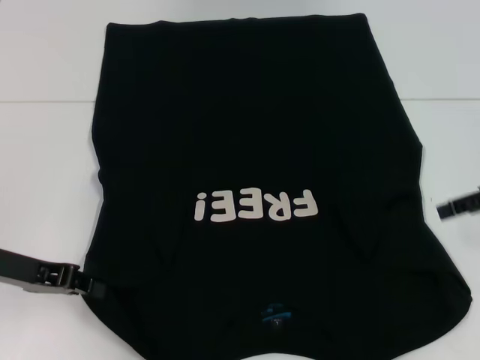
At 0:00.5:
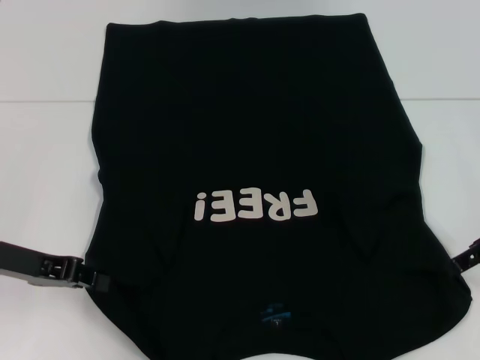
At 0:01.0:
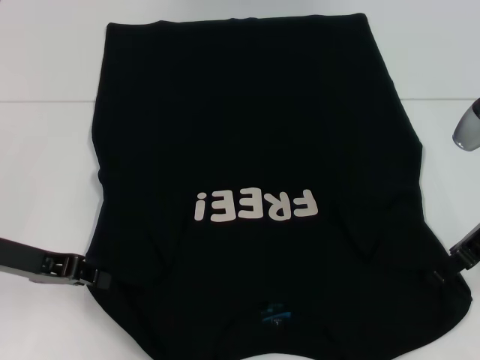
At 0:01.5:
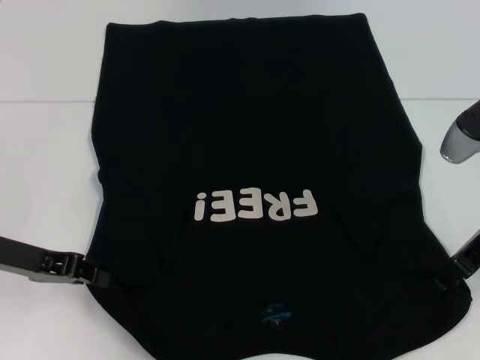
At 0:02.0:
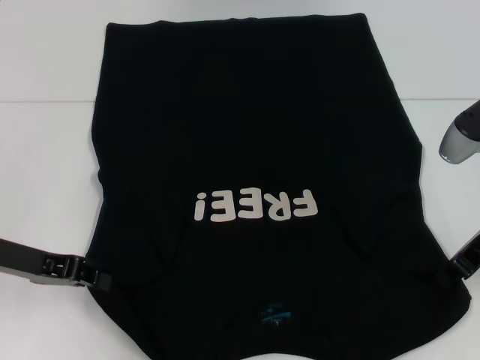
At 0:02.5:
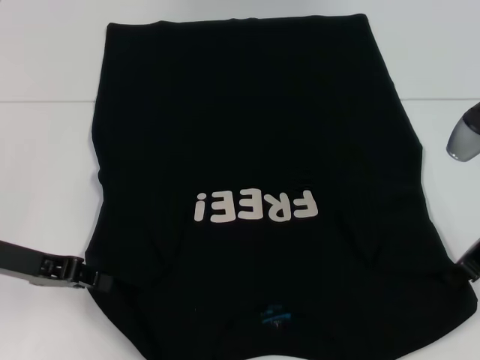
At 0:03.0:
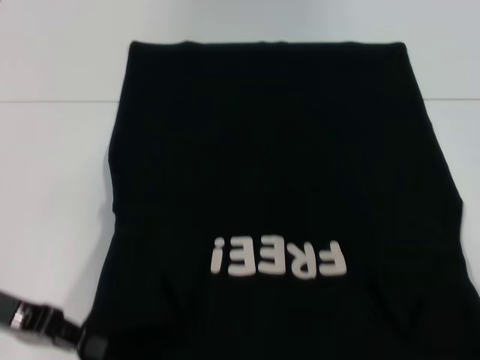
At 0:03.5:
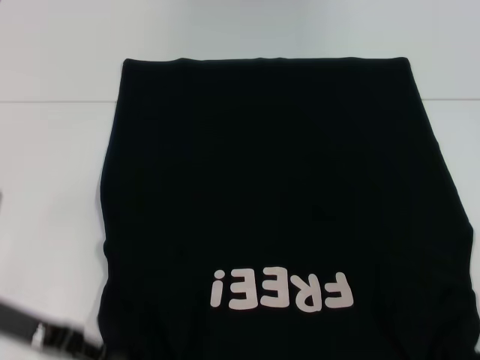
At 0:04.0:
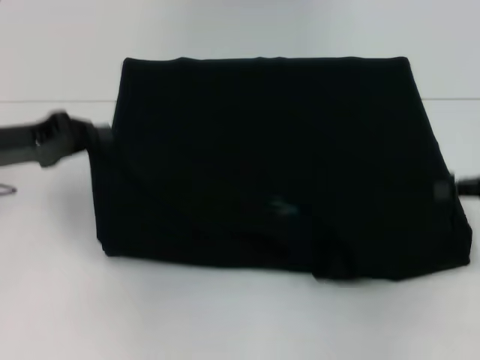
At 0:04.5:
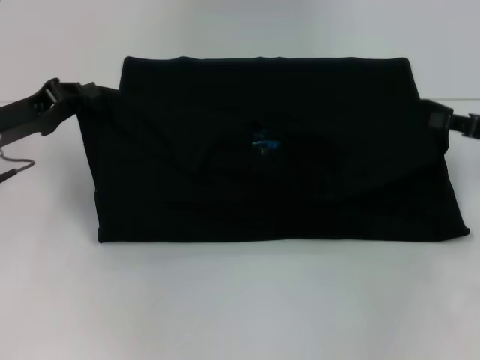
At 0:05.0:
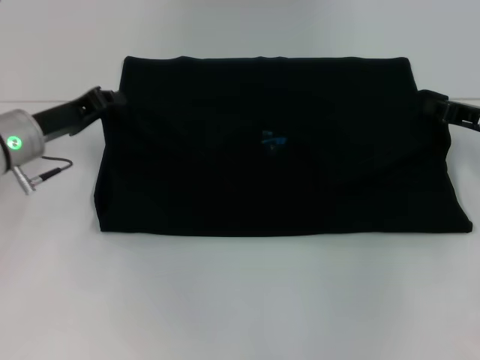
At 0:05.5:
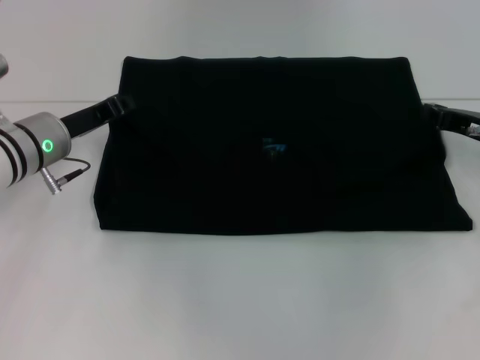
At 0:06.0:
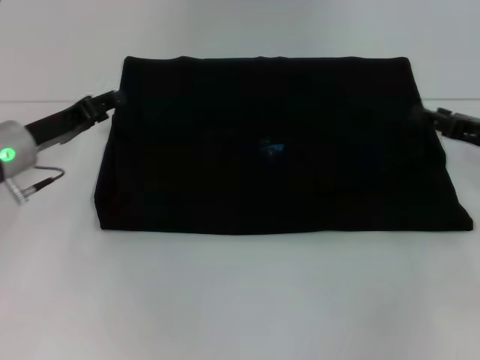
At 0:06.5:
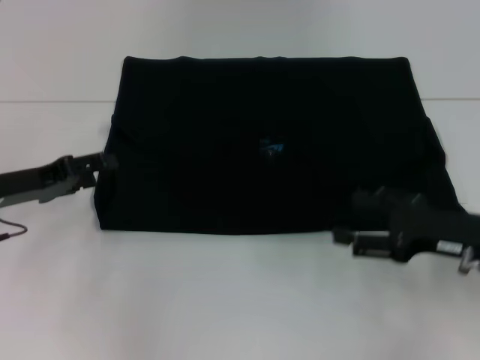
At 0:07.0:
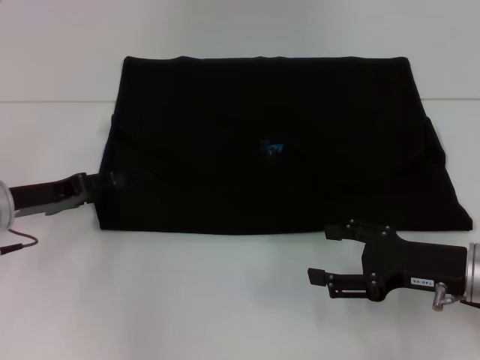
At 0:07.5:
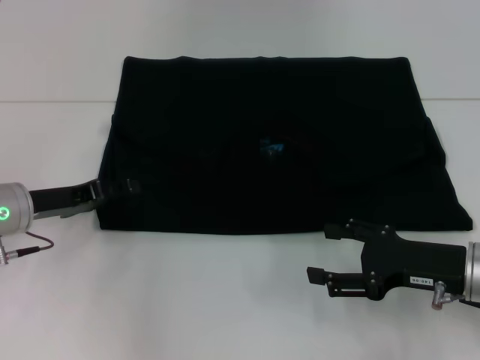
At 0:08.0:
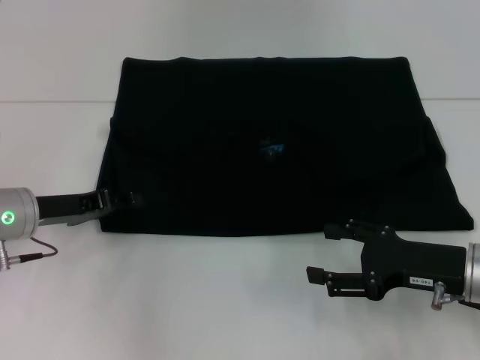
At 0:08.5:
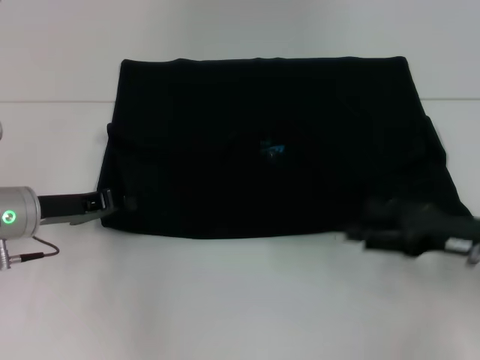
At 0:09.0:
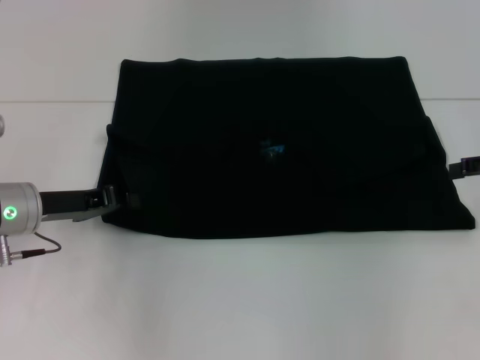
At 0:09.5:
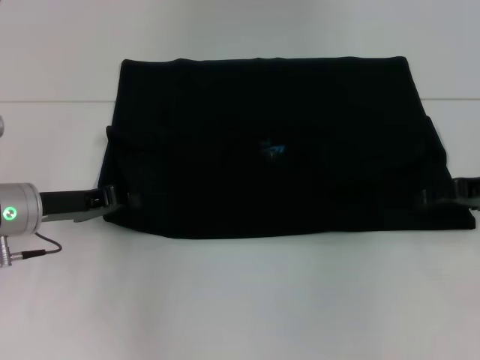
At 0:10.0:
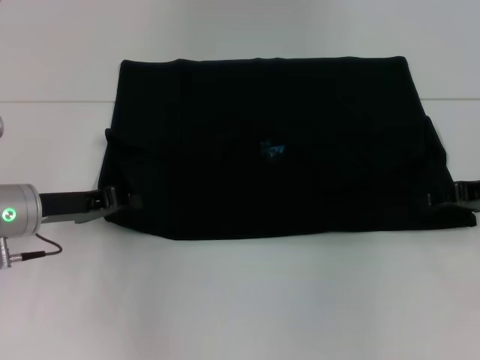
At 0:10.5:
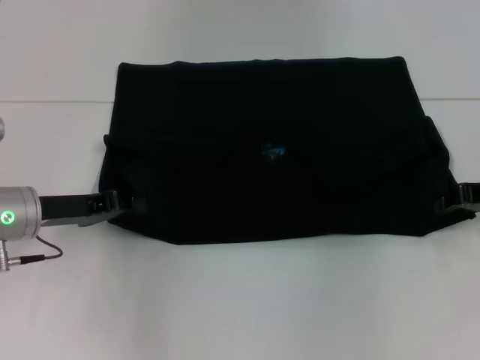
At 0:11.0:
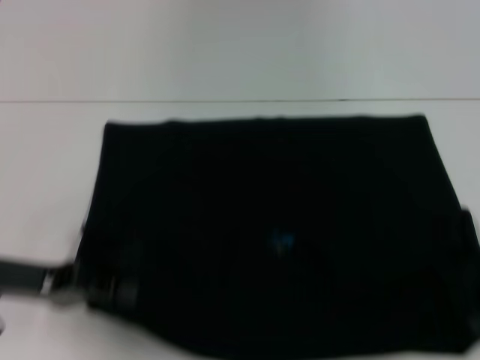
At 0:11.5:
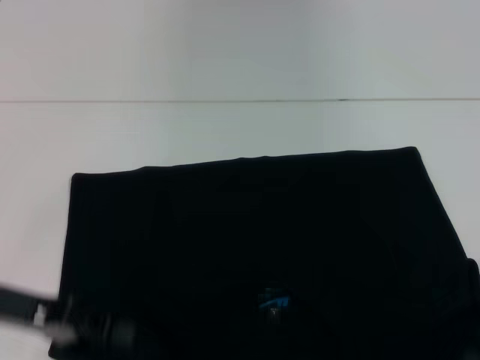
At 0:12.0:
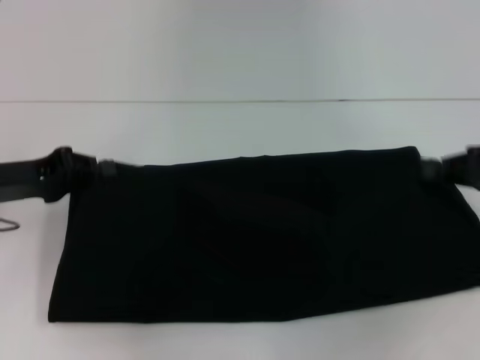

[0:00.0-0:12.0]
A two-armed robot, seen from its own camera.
Step, 0:00.0 to 0:02.0: Grab the bottom right corner with your right hand.
Step, 0:02.5 to 0:05.5: Fold the clothes with your left hand.
Step, 0:02.5 to 0:05.5: Fold the clothes with your right hand.
Step, 0:06.0 to 0:11.0: Pull the clothes with your left hand.
Step, 0:06.0 to 0:11.0: Pull the clothes with your right hand.
0:00.0 to 0:02.0: The right gripper moves to the left, about 5 cm, and closes its fingers.
0:02.0 to 0:04.0: The right gripper is displaced to the right by about 10 cm, and closes up. Meanwhile the left gripper shifts by approximately 5 cm.
0:04.0 to 0:06.0: The right gripper ends up approximately 5 cm from where it was, and opens its fingers. Meanwhile the left gripper changes place by about 5 cm, and opens up.
0:06.0 to 0:08.0: The right gripper travels backward and to the left by about 10 cm, and opens.
0:08.0 to 0:10.0: The left gripper closes its fingers. The right gripper heads forward, to the right and upward, covering about 15 cm.
0:10.0 to 0:12.0: The left gripper travels backward and back again, roughly 10 cm each way. Meanwhile the right gripper reaches about 10 cm backward, then returns, and closes.

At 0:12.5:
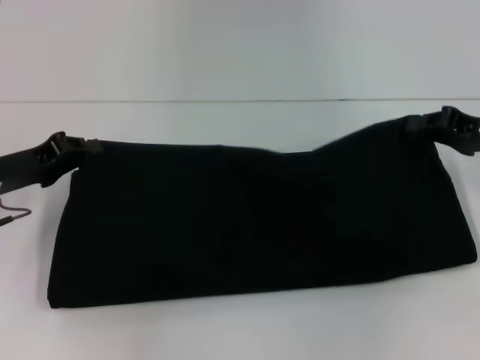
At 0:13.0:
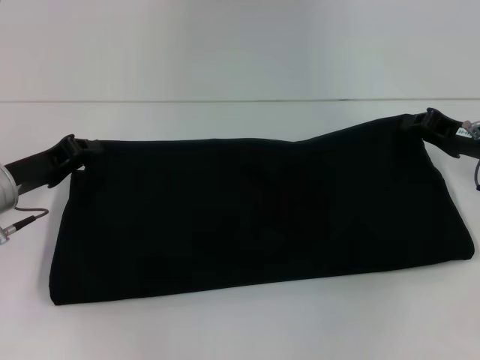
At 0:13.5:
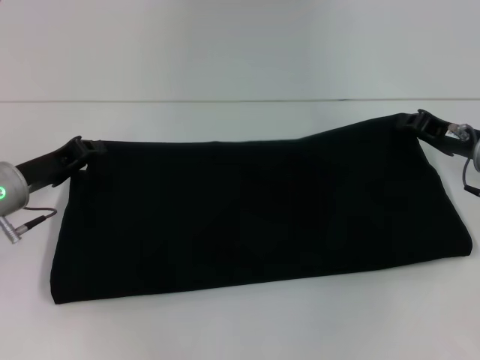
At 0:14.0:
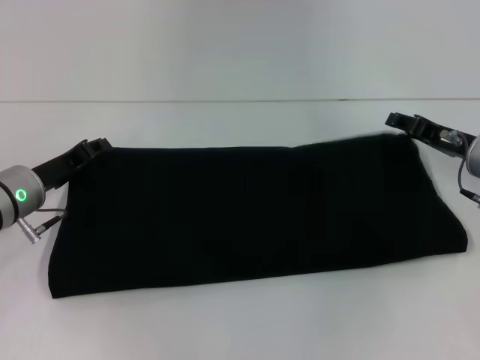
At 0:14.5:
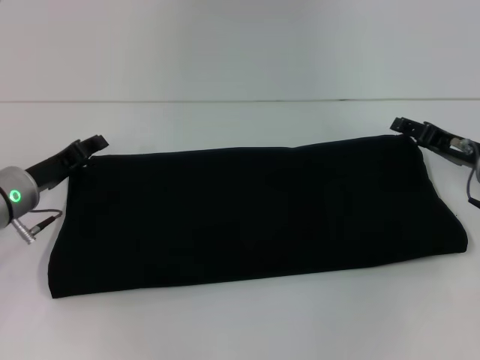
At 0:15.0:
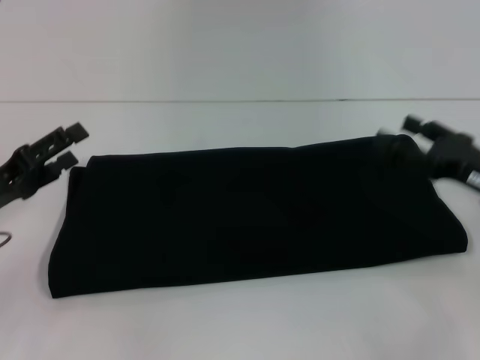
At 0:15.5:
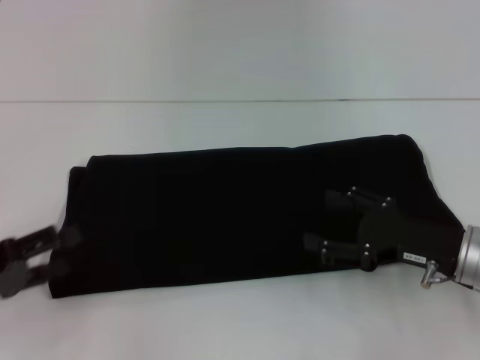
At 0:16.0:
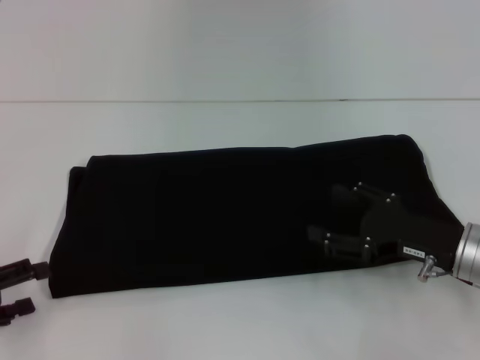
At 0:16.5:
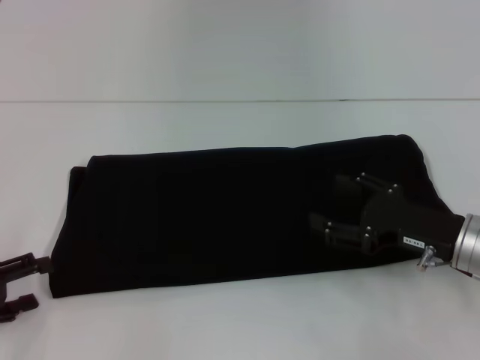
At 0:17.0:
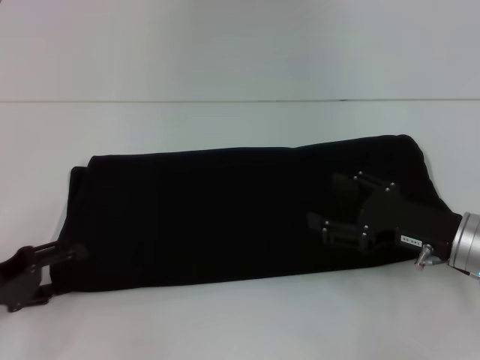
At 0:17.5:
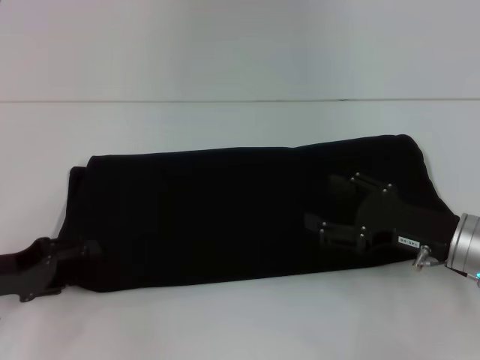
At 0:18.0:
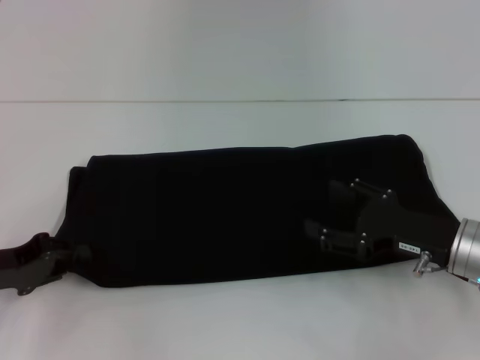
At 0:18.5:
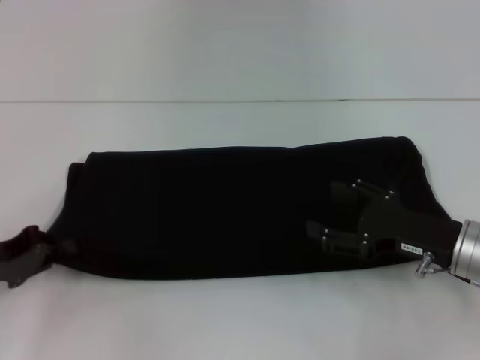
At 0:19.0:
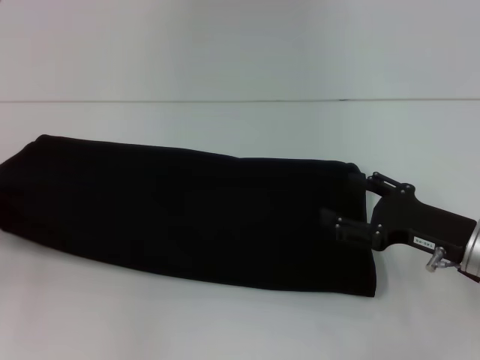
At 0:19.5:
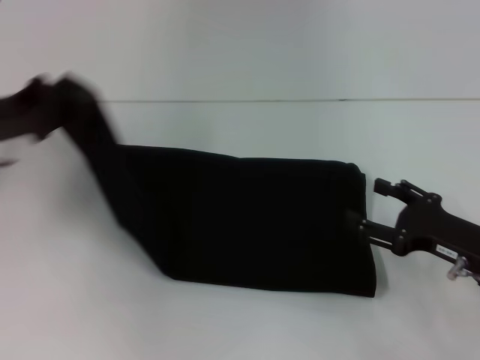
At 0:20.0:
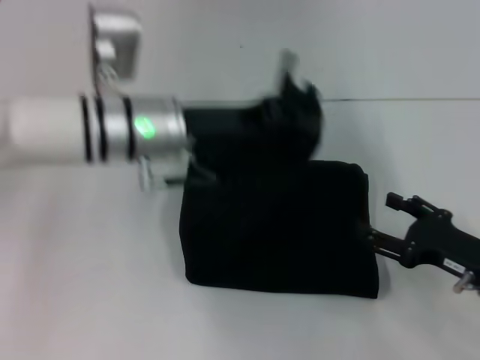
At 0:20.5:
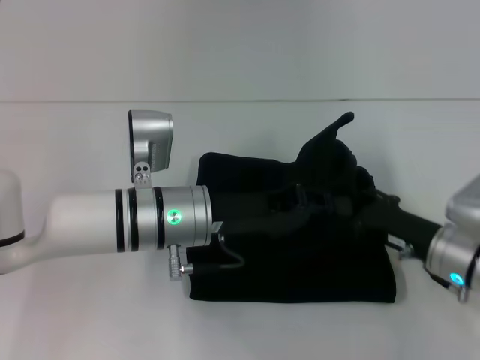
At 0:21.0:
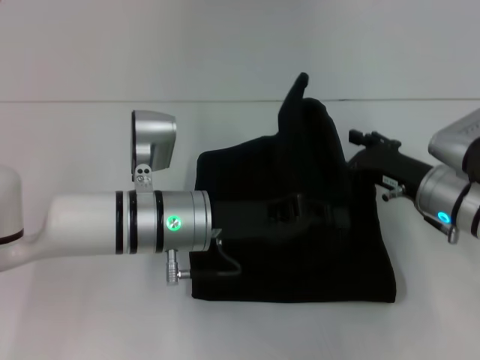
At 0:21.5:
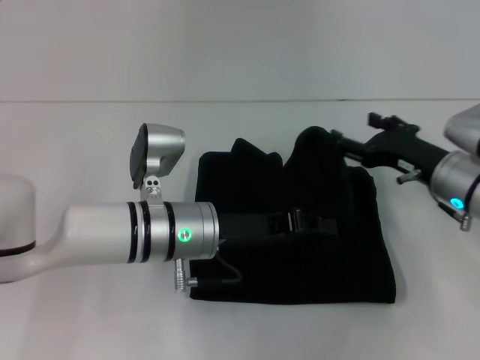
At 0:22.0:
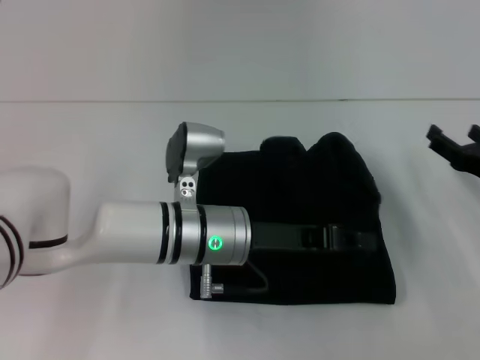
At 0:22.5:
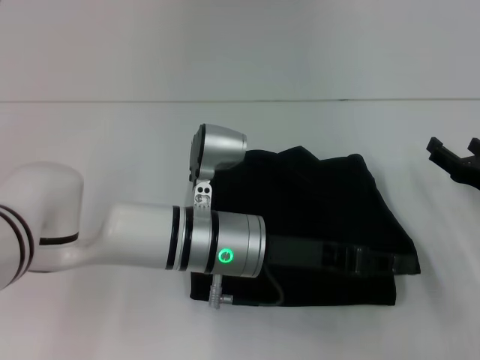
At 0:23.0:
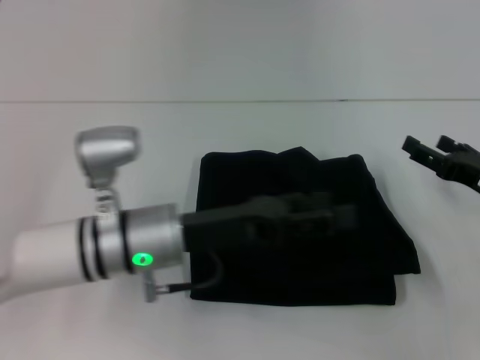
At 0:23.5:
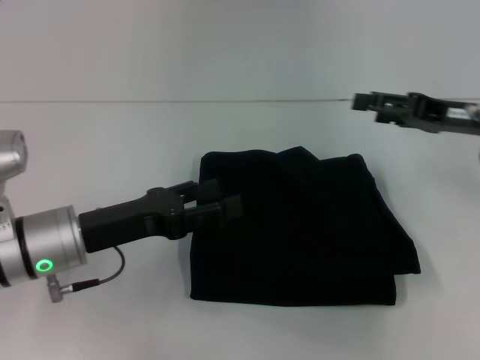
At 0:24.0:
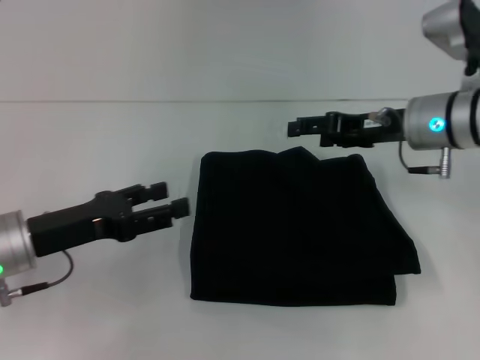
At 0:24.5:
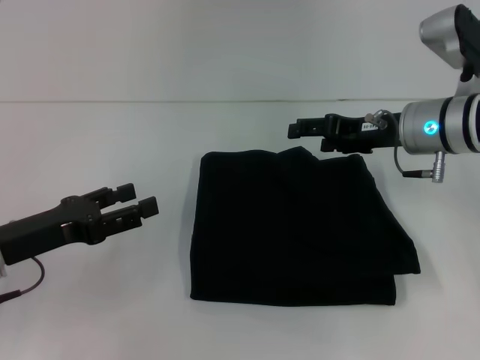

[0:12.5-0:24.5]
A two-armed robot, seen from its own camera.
Step, 0:12.5 to 0:14.5: Fold the clothes with your right hand.
Step, 0:12.5 to 0:22.5: Fold the clothes with your left hand.
0:12.5 to 0:14.5: The right gripper moves downward, about 5 cm, and opens up. Meanwhile the left gripper ends up roughly 5 cm from where it was, and opens.
0:14.5 to 0:16.5: The right gripper heads backward, covering roughly 10 cm; the left gripper shifts about 15 cm backward and to the left, and opens.
0:16.5 to 0:18.5: The left gripper ends up about 5 cm from where it was, and closes up.
0:18.5 to 0:20.5: The left gripper moves to the right, some 25 cm.
0:20.5 to 0:22.5: The right gripper is displaced to the right by approximately 10 cm.
0:22.5 to 0:24.5: The left gripper is displaced to the left by about 25 cm, and opens. The right gripper is displaced to the left, forward and upward by about 15 cm.

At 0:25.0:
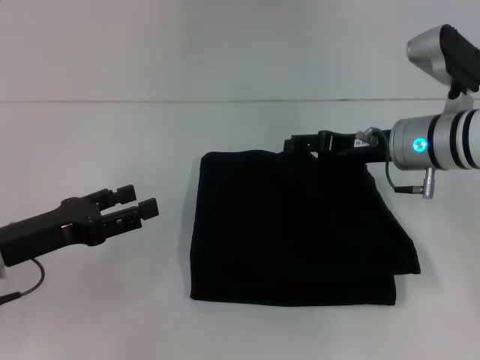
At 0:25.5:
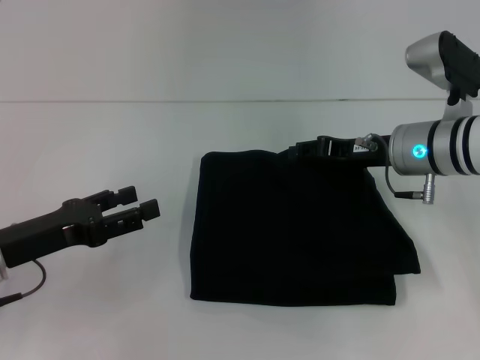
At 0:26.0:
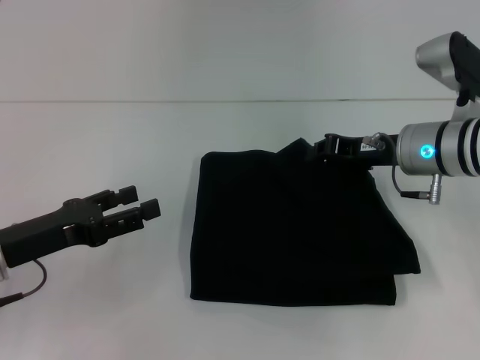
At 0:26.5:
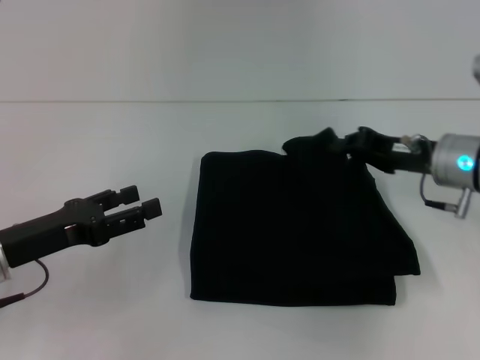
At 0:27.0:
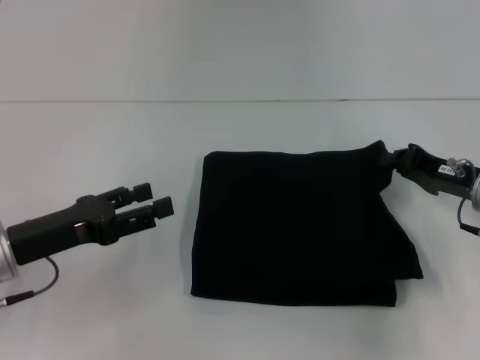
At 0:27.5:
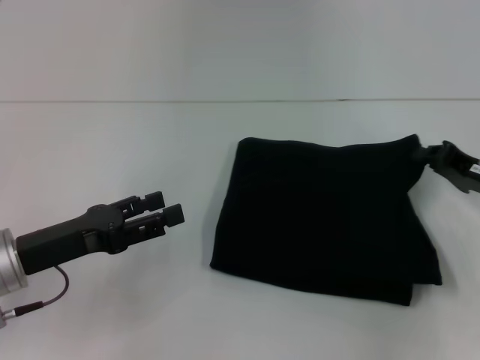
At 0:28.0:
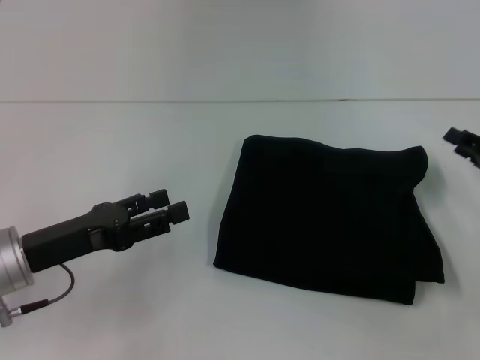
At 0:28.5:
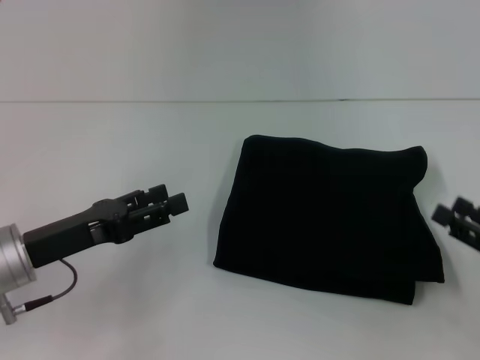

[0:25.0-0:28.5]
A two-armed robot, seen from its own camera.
0:25.0 to 0:27.0: The right gripper shifts some 10 cm to the right and backward, and closes up.
0:27.0 to 0:28.5: The right gripper travels backward and to the right by about 15 cm, and opens up.
